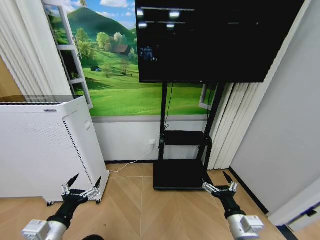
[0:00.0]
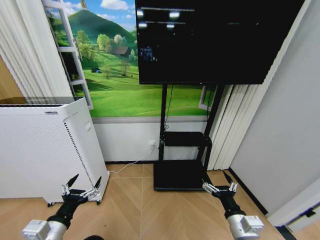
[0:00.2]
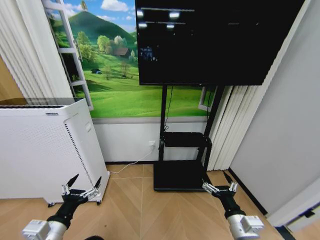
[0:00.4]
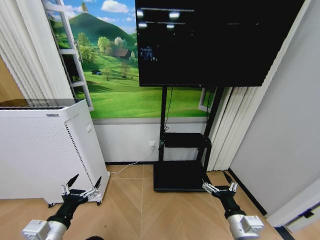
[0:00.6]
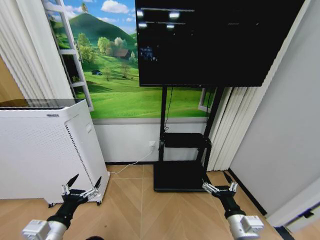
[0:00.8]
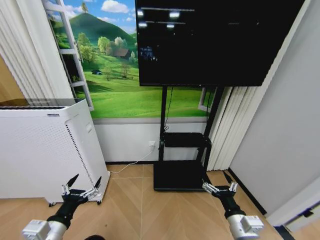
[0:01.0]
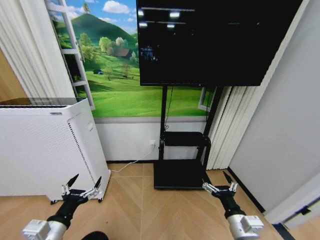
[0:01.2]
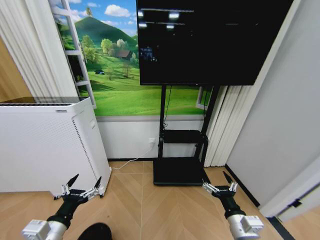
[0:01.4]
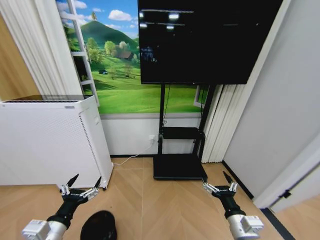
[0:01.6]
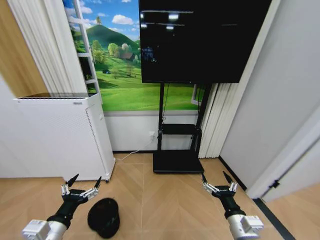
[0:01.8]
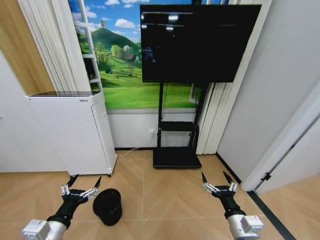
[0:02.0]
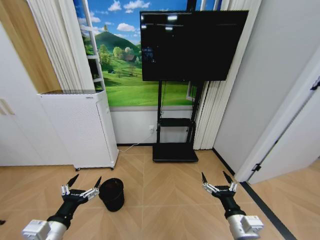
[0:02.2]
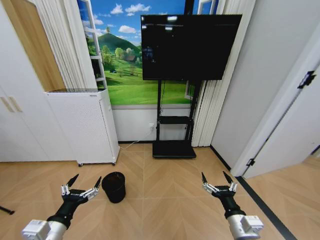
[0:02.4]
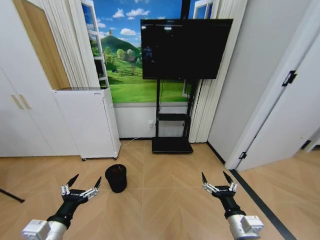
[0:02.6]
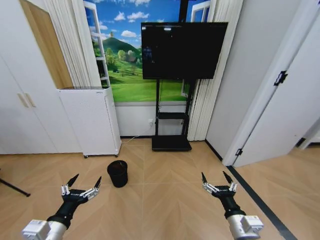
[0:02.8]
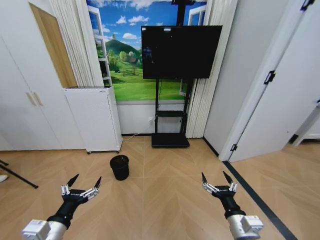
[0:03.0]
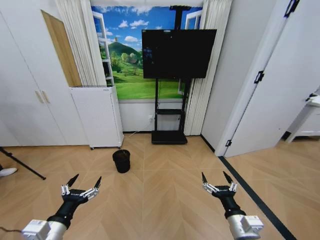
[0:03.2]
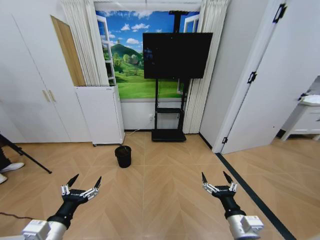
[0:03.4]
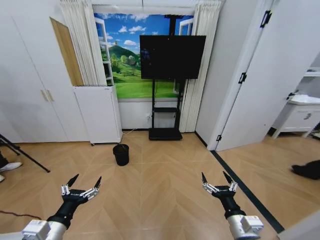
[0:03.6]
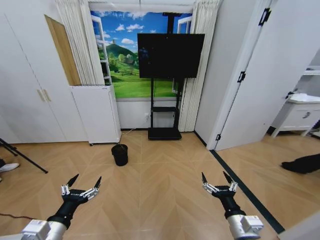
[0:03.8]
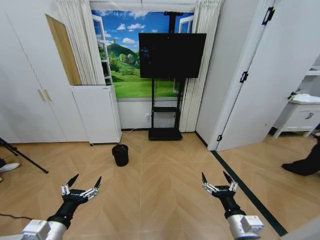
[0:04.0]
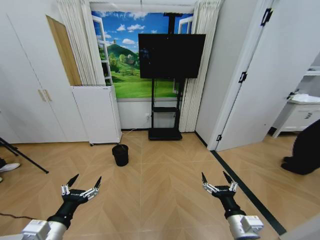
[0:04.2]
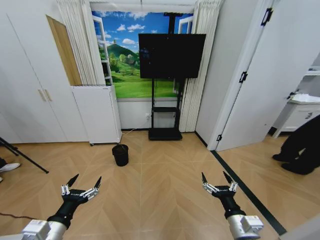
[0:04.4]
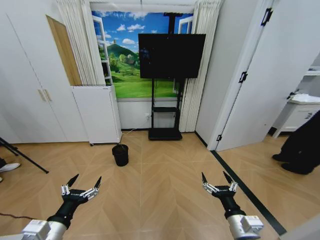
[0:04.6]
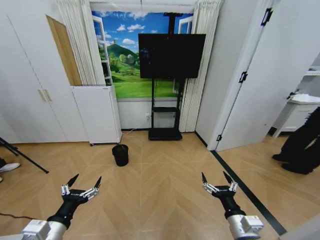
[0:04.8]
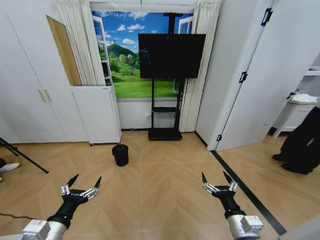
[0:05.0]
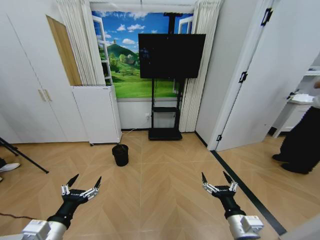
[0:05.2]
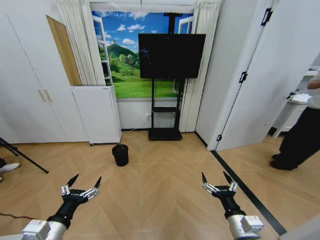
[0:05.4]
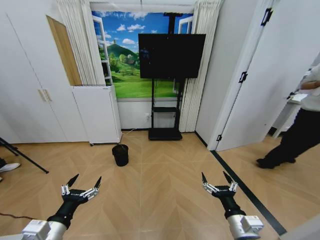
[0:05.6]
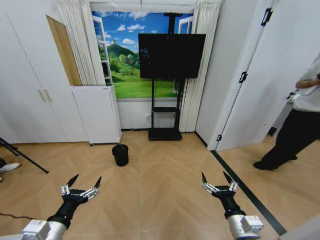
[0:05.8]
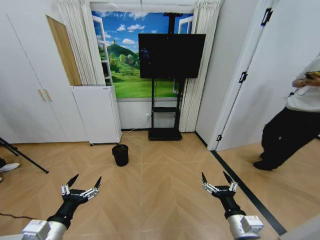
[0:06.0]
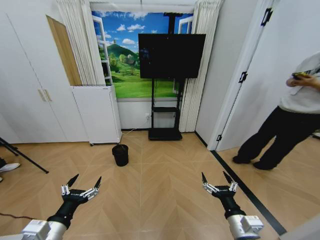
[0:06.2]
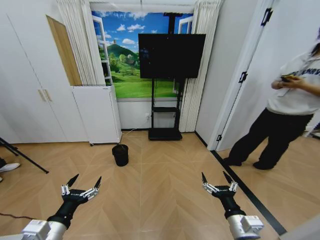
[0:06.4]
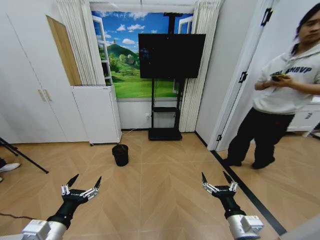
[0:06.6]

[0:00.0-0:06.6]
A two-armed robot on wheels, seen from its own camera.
Task of the whole recording: Pick up the trash bin and place the garbage on the floor into it.
0:05.0 to 0:06.6: Neither gripper changes place.
